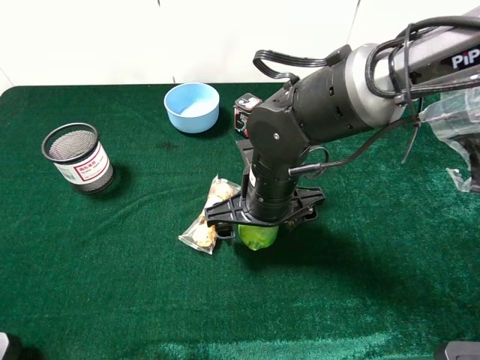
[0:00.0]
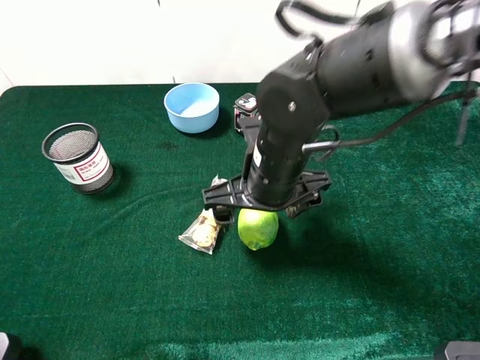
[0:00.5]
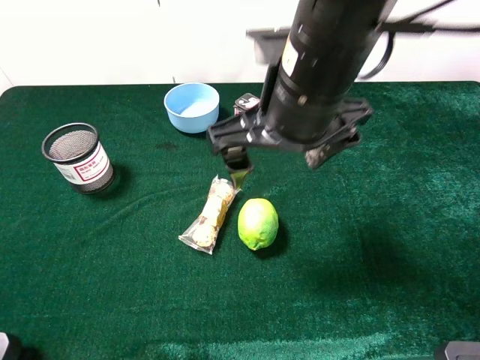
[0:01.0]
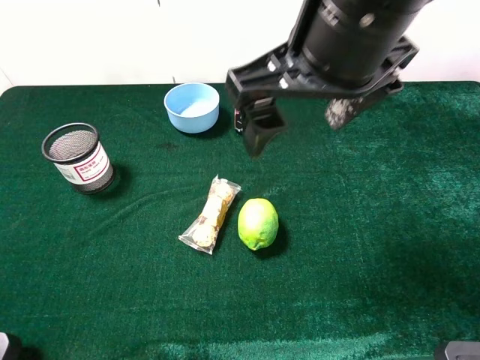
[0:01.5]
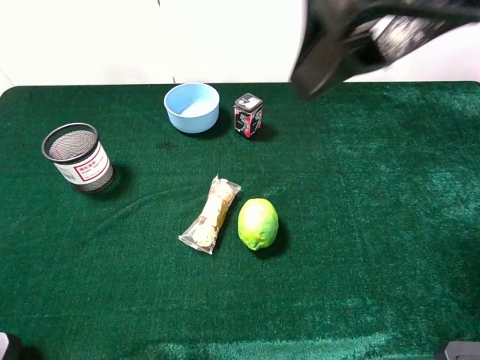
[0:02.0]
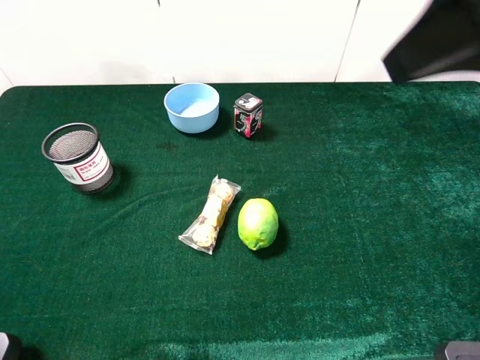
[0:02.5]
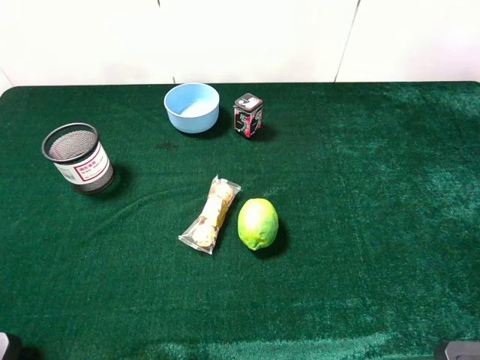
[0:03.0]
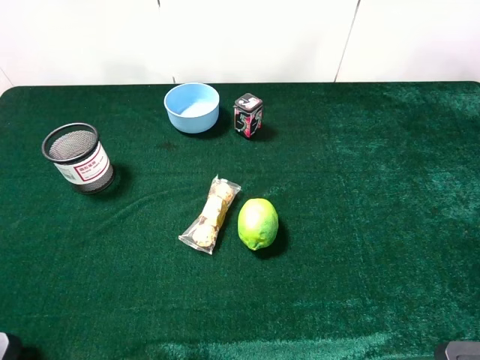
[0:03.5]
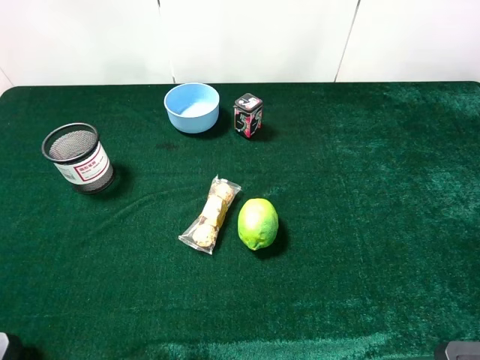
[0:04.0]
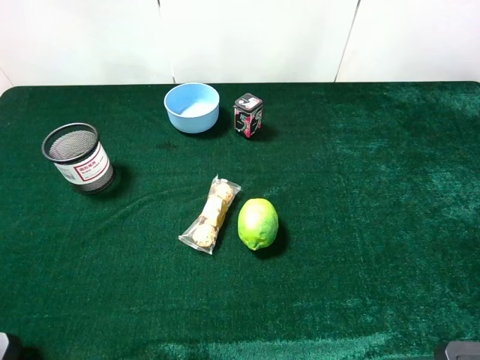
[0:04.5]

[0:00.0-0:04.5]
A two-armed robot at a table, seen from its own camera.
Task of the whole recording: the gripper move the object.
0:00.0 to 0:02.0: The right gripper goes roughly 30 cm upward.
0:02.0 to 0:04.5: The right gripper heads to the right, backward and downward, covering approximately 25 cm.
